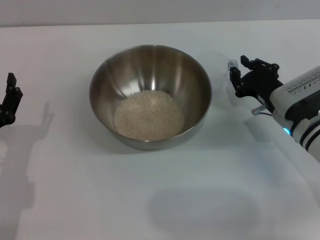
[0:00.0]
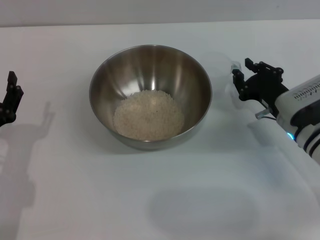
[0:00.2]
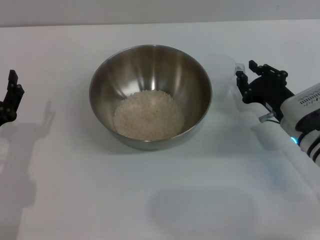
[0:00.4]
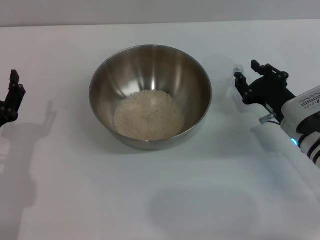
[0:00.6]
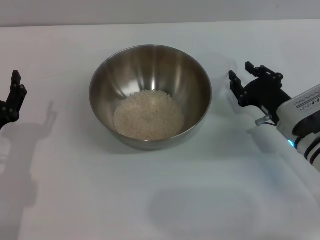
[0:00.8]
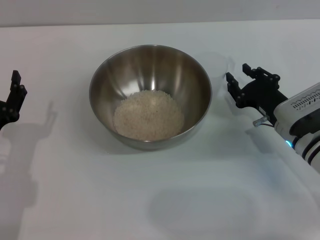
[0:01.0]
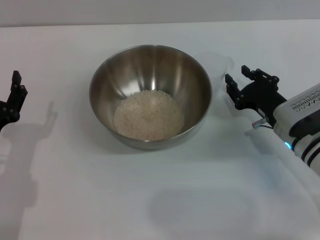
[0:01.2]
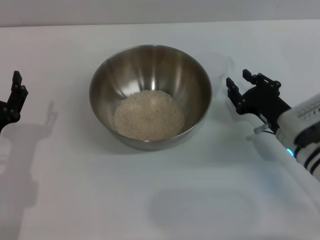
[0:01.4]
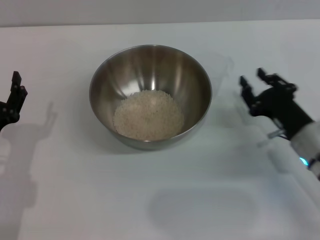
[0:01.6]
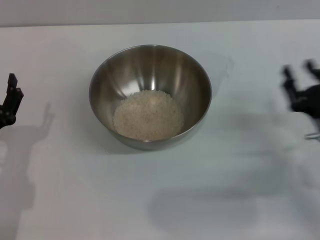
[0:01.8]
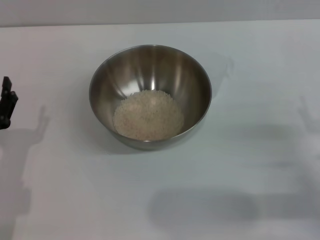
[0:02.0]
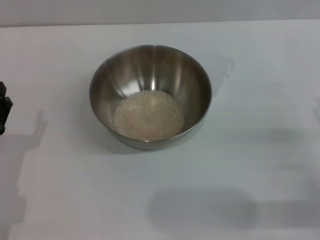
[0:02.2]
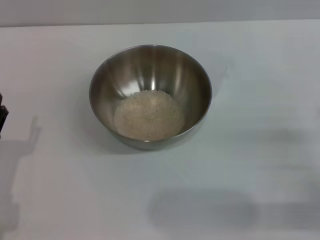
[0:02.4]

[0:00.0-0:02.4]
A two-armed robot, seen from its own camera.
Task of the whole recording: Place the bowl in the middle of the table with one hand and pour the rice from the grain cup into it with the other hand.
0:00.0 to 0:01.2: The right gripper opens.
0:01.2 to 0:02.4: The right gripper moves backward and to the right, about 15 cm.
